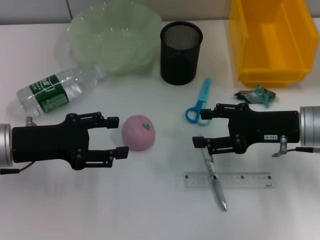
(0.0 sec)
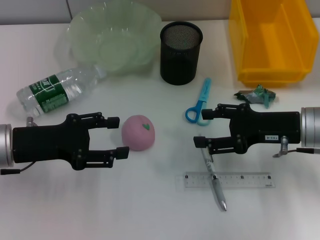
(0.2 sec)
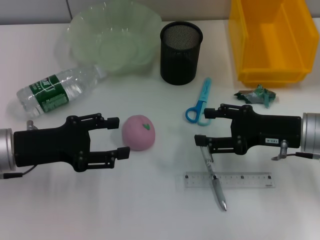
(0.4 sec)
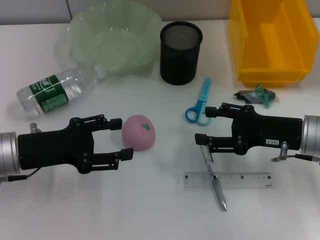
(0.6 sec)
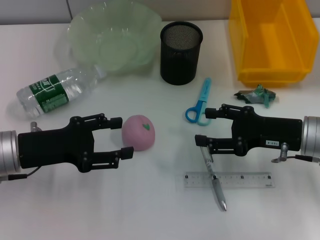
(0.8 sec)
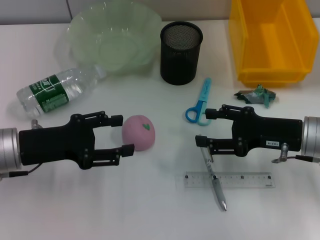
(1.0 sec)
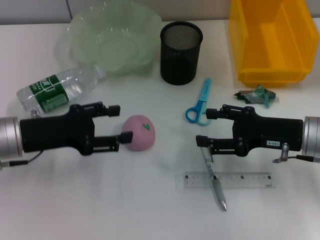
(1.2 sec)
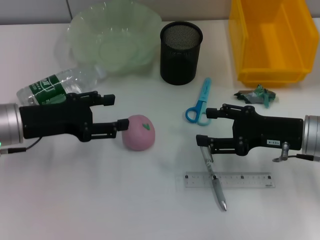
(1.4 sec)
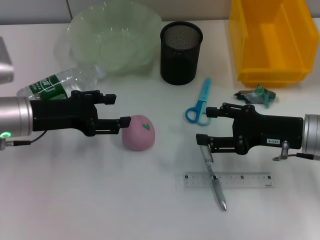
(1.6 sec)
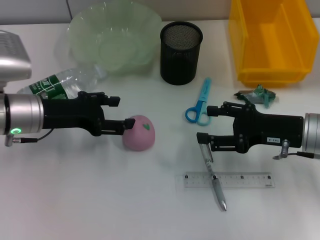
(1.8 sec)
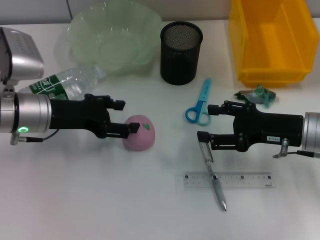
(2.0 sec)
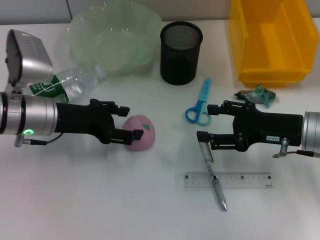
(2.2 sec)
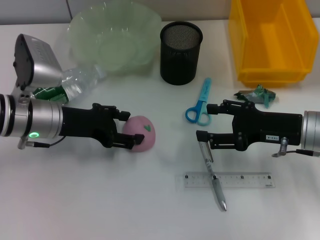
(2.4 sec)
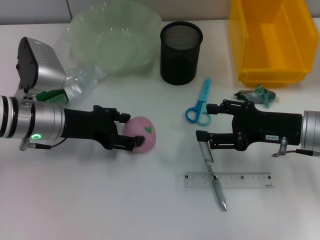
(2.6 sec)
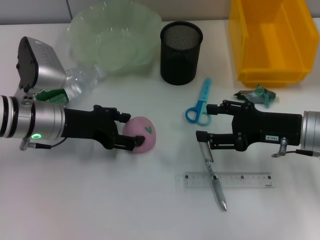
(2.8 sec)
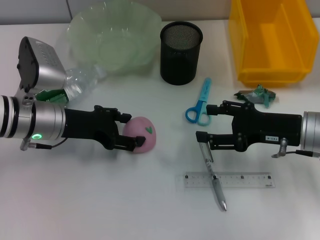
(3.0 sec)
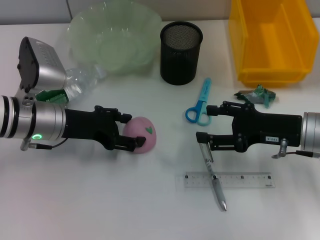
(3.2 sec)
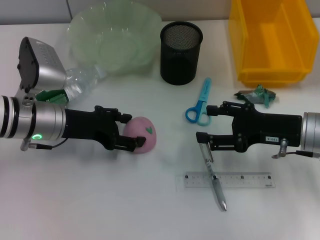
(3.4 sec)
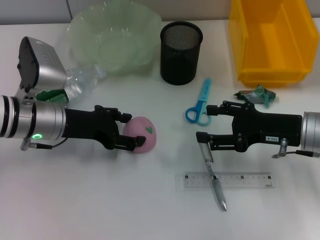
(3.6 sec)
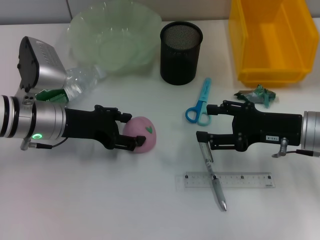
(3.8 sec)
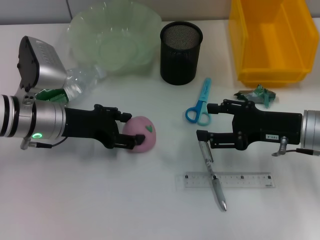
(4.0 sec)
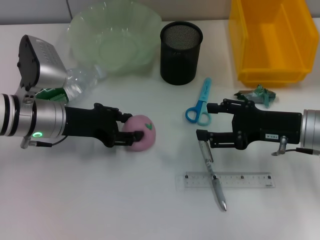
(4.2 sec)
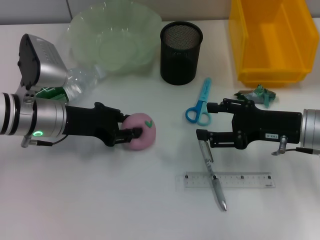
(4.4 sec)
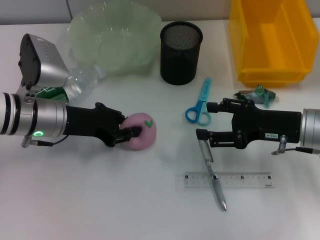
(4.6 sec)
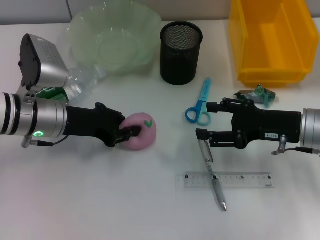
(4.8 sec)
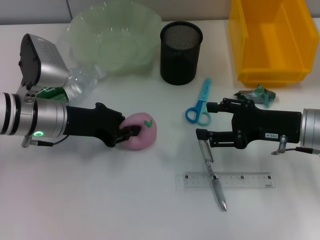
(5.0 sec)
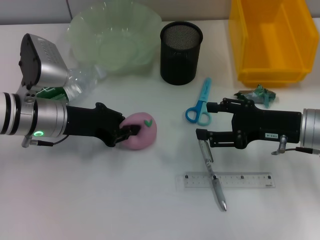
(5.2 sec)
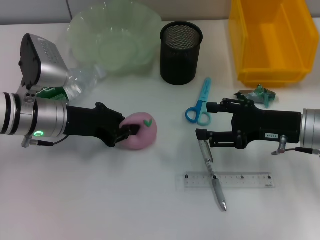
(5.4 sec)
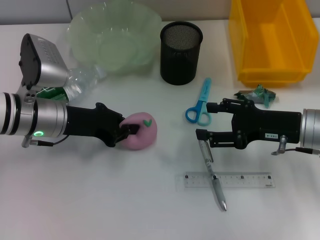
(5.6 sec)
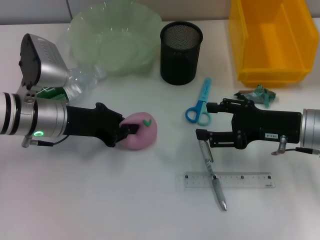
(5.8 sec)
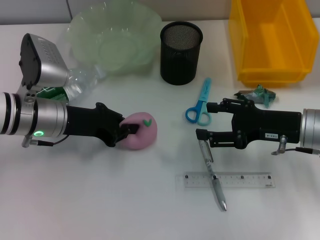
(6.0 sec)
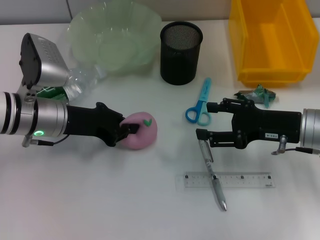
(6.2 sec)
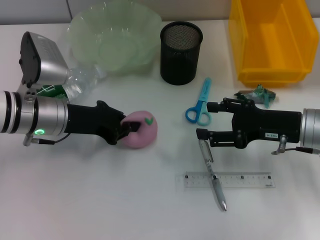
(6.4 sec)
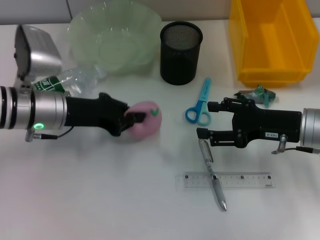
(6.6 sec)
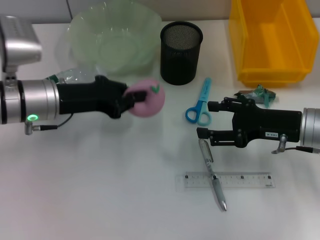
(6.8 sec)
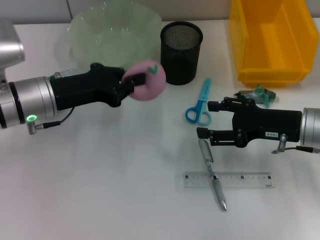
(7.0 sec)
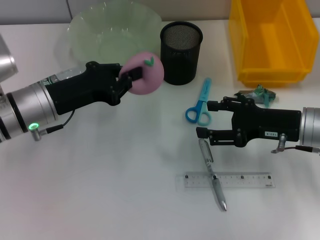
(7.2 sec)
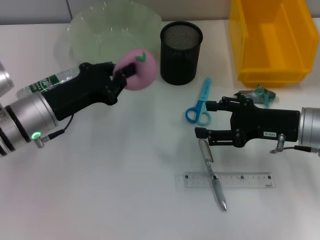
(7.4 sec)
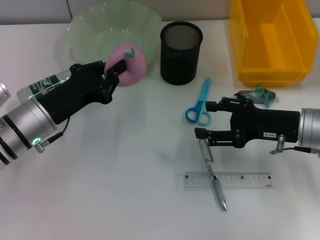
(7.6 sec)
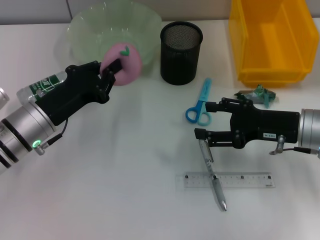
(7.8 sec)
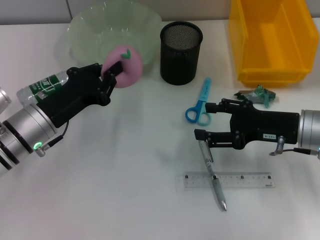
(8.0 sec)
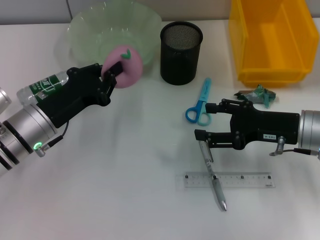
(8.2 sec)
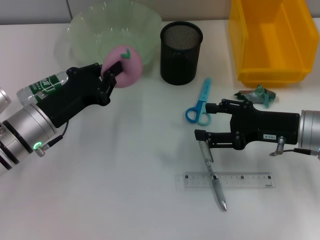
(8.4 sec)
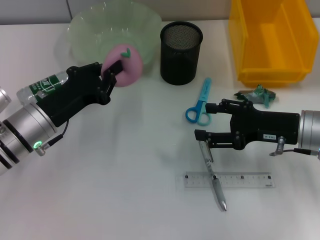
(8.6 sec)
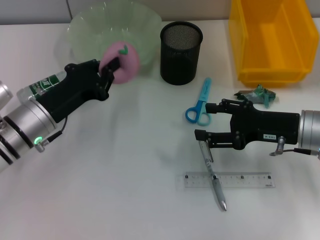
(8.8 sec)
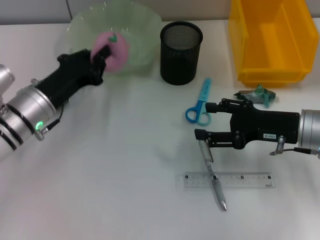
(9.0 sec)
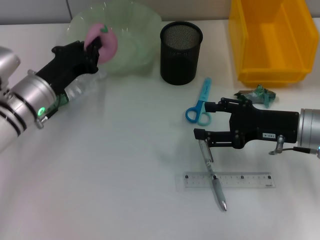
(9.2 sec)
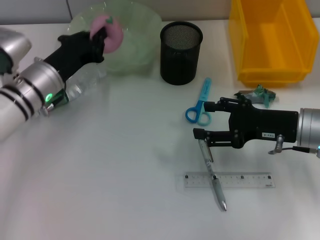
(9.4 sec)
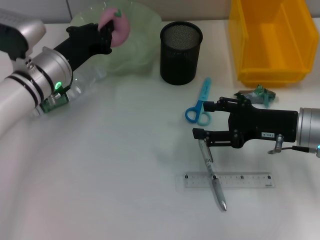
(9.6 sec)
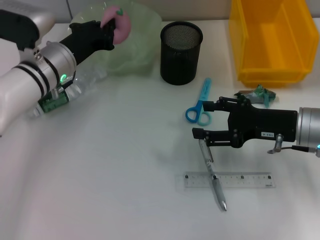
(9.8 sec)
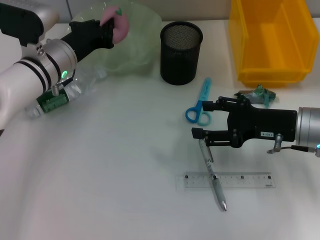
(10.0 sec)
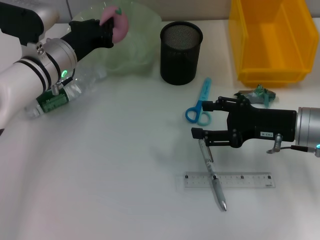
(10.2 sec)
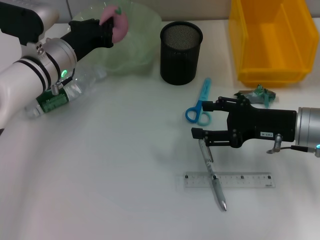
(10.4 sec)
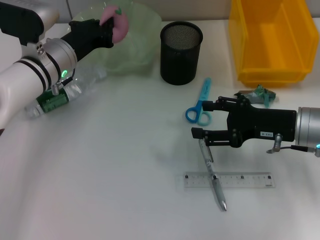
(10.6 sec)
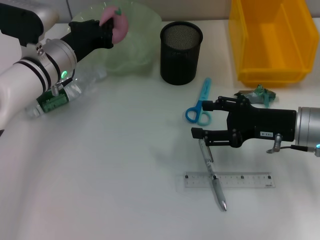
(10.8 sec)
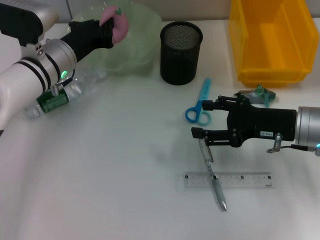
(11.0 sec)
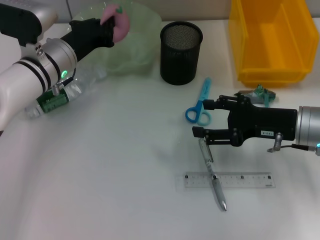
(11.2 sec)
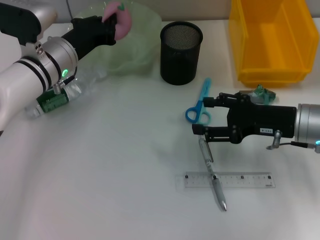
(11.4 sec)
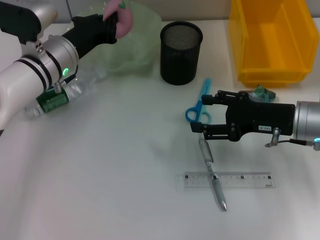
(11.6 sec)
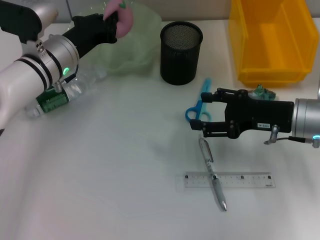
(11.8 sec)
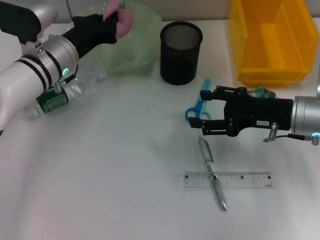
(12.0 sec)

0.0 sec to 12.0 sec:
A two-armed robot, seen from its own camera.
Step, 0.0 sec to 5.4 sec: Grab the peach with the left hand.
0.0 sec to 1.6 sec: The grippers make only small movements.
1.6 sec to 3.0 sec: The grippers stay close to where they were, moving slightly.
3.0 sec to 4.4 sec: The left gripper closes.
4.4 sec to 6.0 sec: The left gripper closes up.
7.6 sec to 9.0 sec: The grippers stay close to where they were, moving slightly.
9.0 sec to 10.4 sec: The left gripper shifts approximately 10 cm forward.
10.4 sec to 12.0 sec: There are only small adjustments of the grippers.

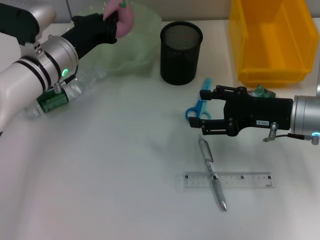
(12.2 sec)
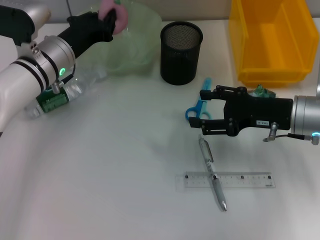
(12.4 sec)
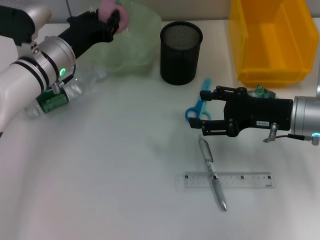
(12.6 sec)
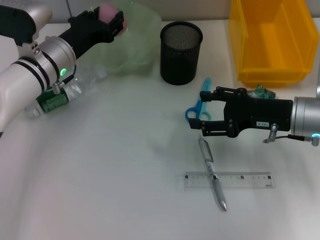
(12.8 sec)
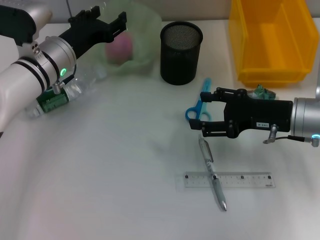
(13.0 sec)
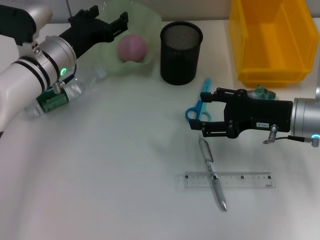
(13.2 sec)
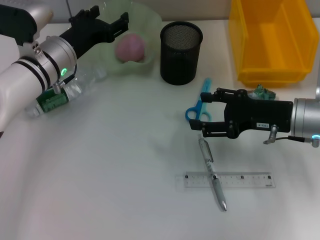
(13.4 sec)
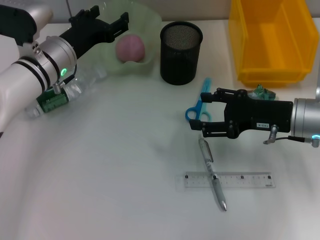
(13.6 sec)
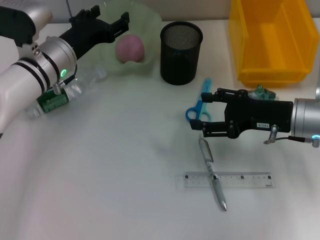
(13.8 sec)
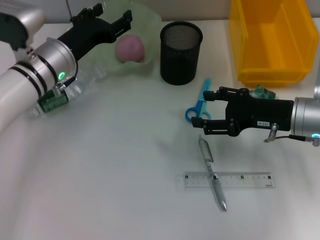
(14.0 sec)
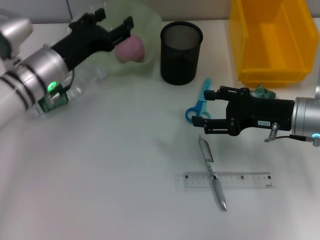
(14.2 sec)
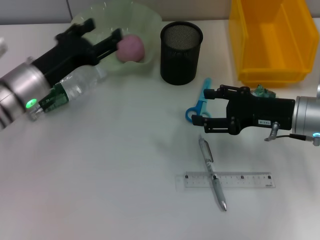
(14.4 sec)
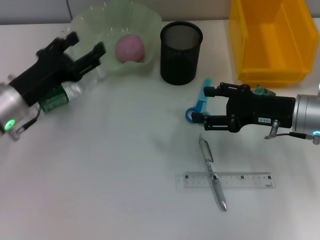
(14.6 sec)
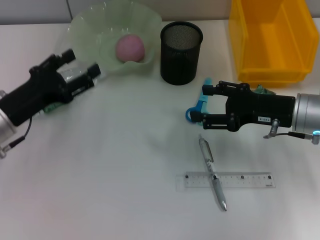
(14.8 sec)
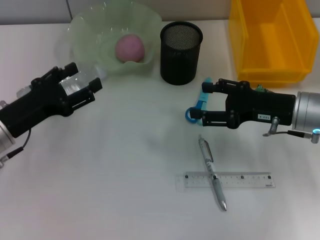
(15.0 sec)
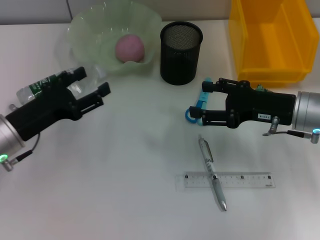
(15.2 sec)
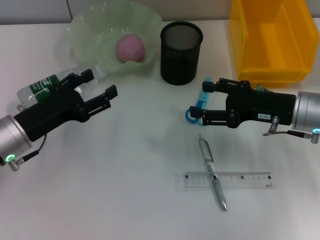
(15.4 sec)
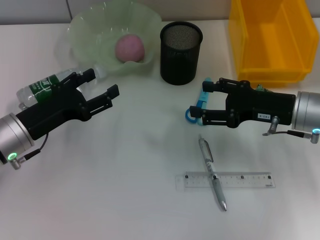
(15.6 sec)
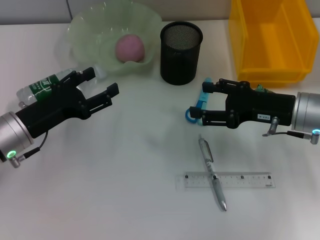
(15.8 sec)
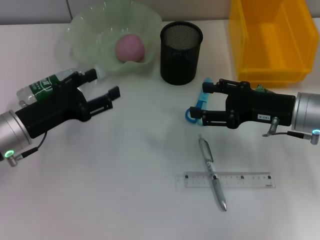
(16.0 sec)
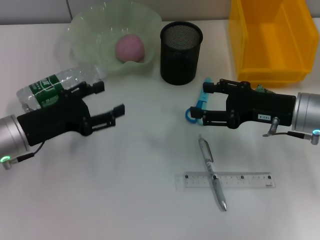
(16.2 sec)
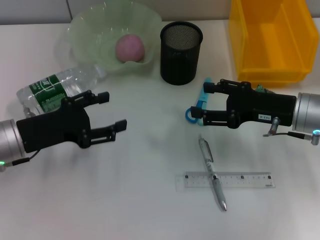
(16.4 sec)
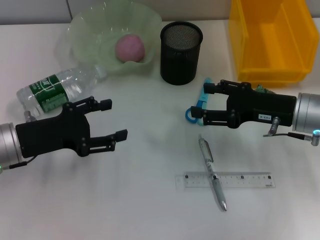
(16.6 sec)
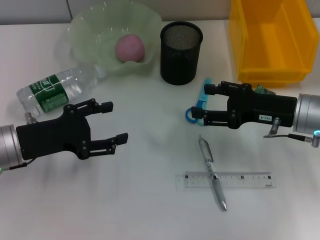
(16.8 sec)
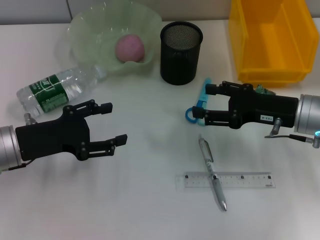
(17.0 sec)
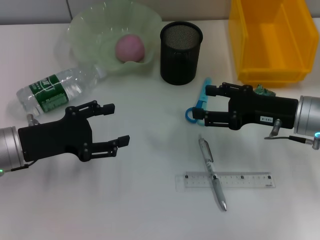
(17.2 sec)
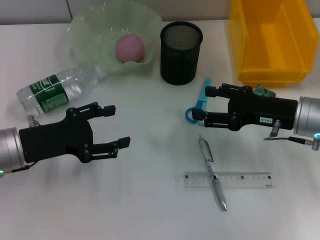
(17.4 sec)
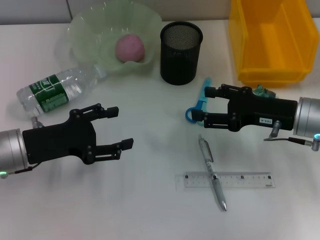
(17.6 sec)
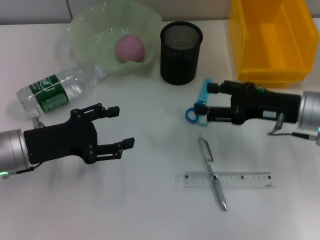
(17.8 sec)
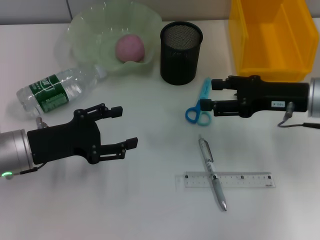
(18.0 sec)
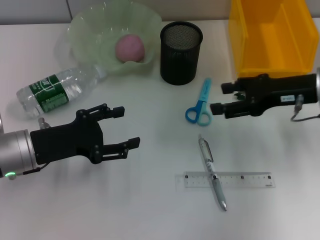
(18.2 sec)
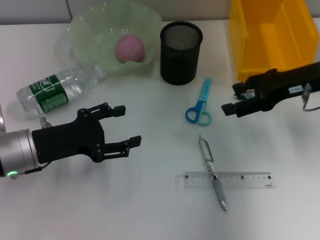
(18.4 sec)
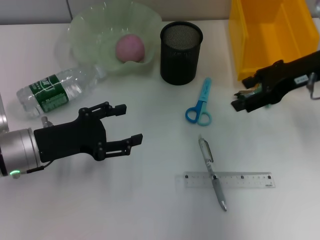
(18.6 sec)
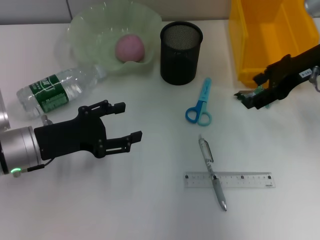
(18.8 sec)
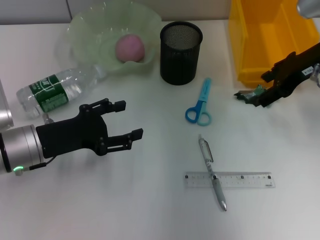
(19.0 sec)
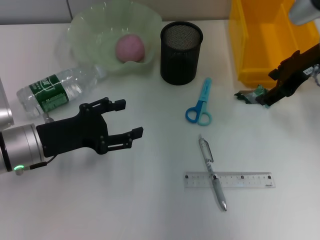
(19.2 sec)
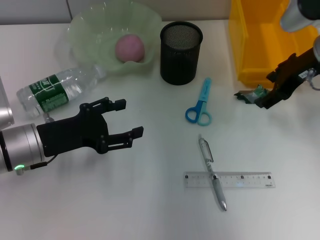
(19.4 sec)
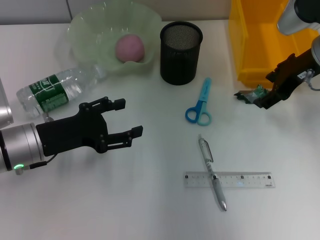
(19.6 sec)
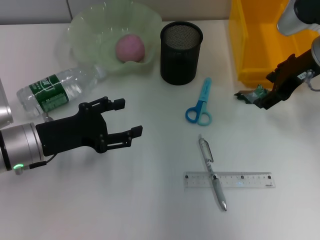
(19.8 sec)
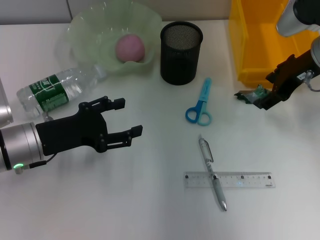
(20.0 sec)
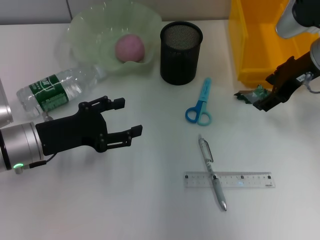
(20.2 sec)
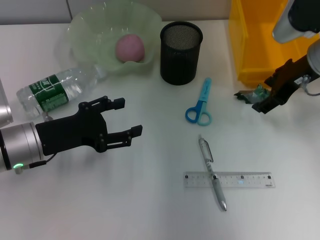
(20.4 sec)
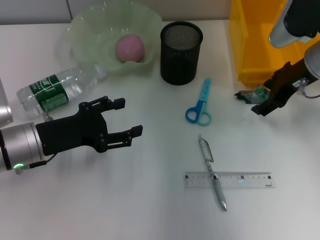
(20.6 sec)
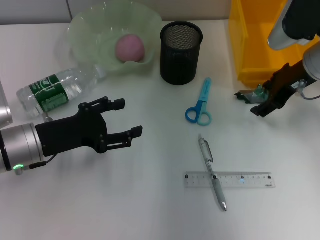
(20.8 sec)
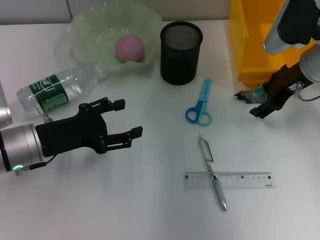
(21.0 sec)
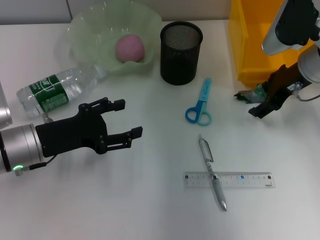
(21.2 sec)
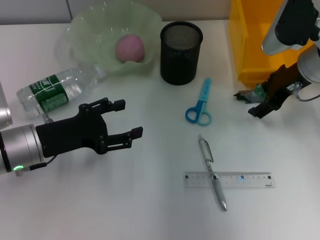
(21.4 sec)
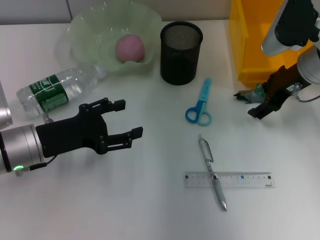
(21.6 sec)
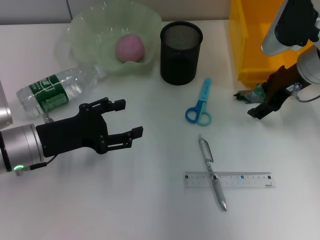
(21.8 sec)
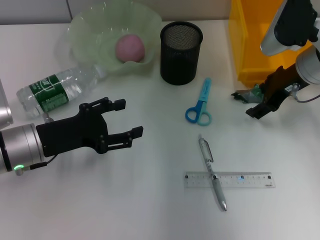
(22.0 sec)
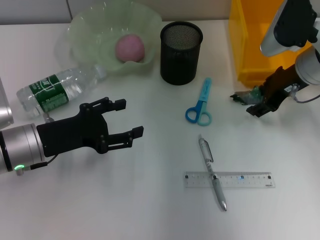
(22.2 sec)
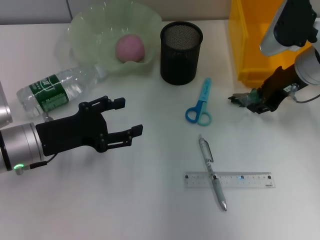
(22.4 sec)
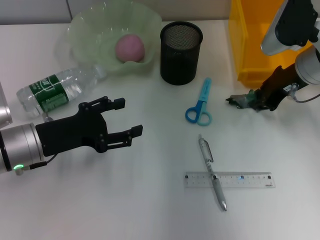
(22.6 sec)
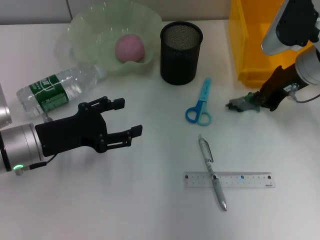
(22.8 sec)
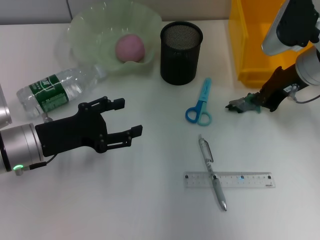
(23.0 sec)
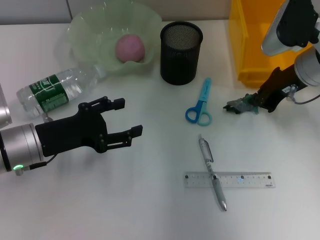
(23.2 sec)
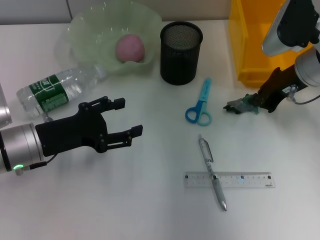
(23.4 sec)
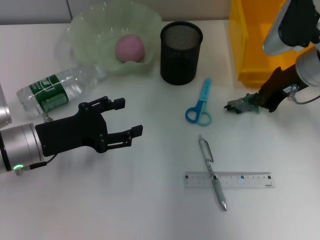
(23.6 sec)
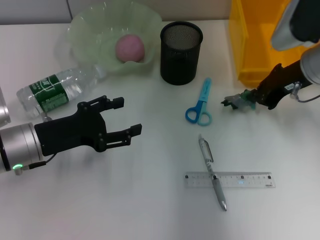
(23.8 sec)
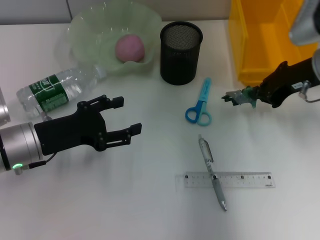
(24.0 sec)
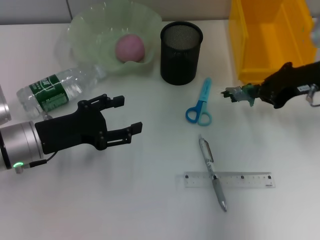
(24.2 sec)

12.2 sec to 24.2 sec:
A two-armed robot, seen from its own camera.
Step, 13.2 sec to 22.6 sec: Grab the plastic with the right hand.
12.2 sec to 13.8 sec: The left gripper opens up.
13.8 sec to 15.2 sec: The left gripper goes about 15 cm backward and to the left.
16.6 sec to 18.2 sec: The right gripper shifts roughly 5 cm upward.
18.2 sec to 19.8 sec: The right gripper shifts about 5 cm forward.
19.8 sec to 21.2 sec: The grippers move only a little.
21.2 sec to 22.6 sec: Both grippers stay about where they are.
22.6 sec to 24.2 sec: The right gripper moves approximately 5 cm, and closes.
